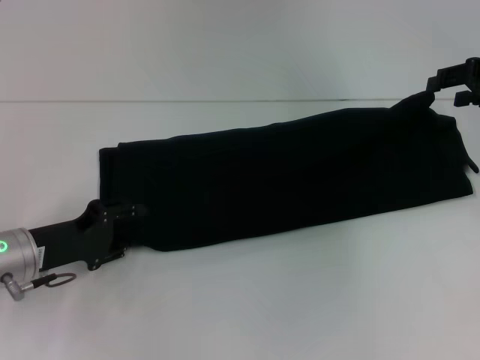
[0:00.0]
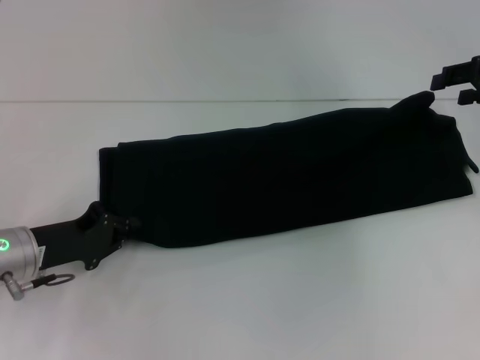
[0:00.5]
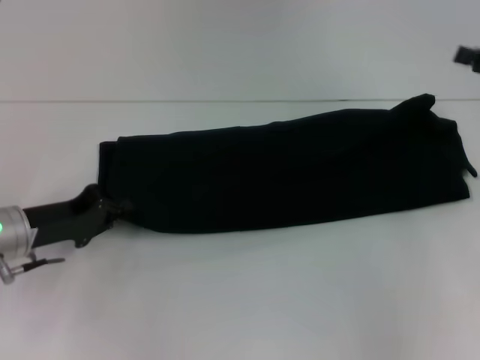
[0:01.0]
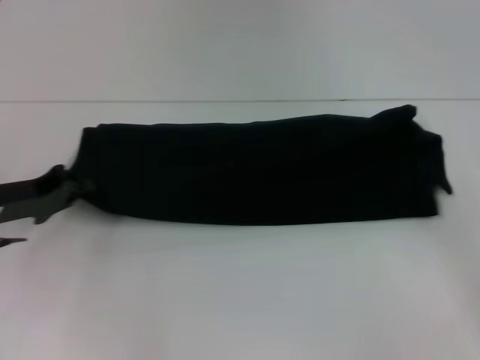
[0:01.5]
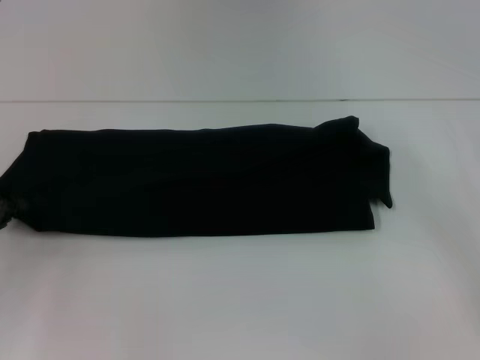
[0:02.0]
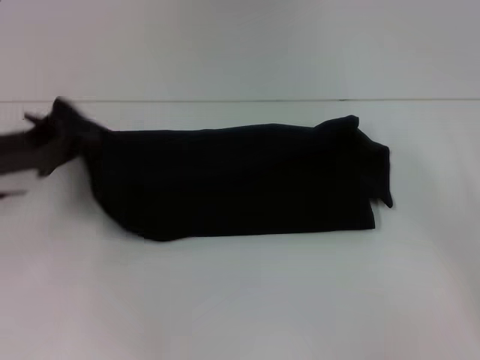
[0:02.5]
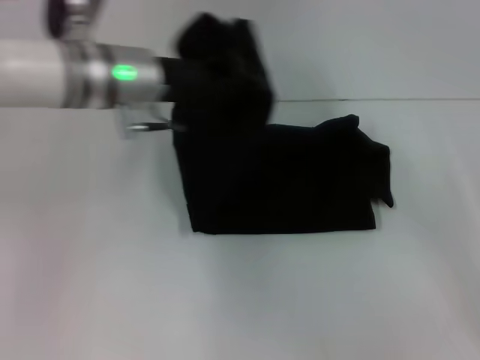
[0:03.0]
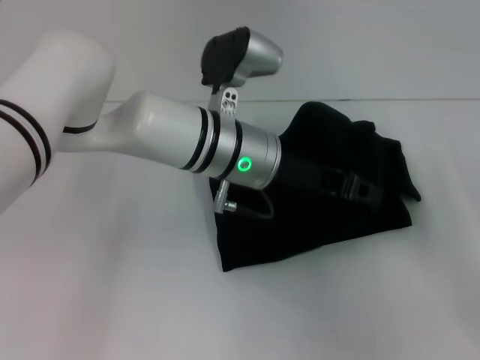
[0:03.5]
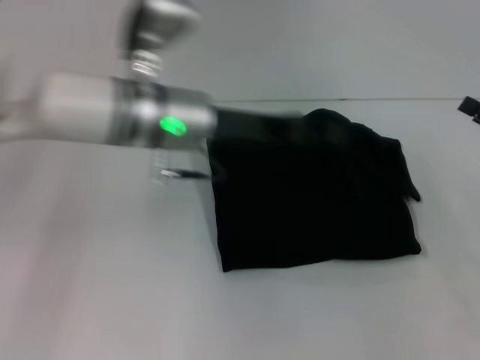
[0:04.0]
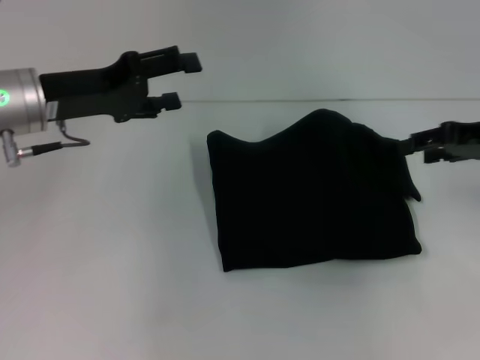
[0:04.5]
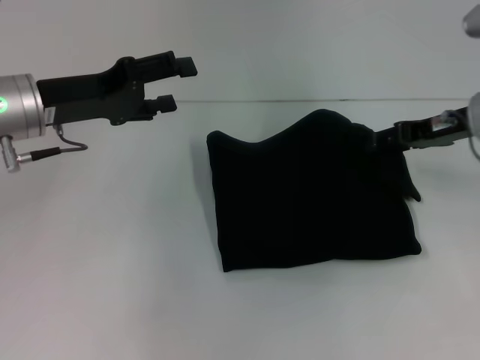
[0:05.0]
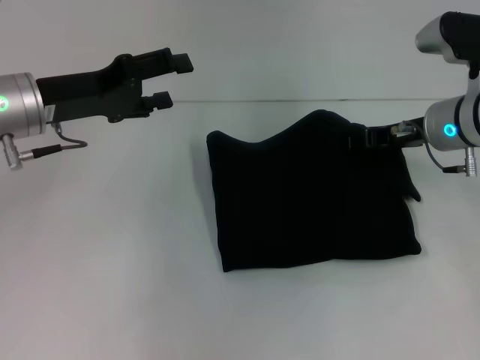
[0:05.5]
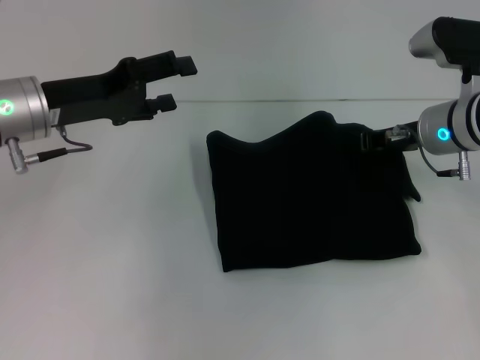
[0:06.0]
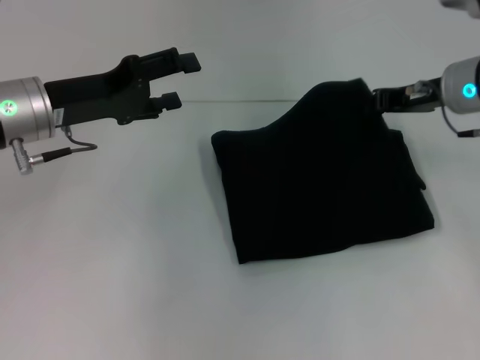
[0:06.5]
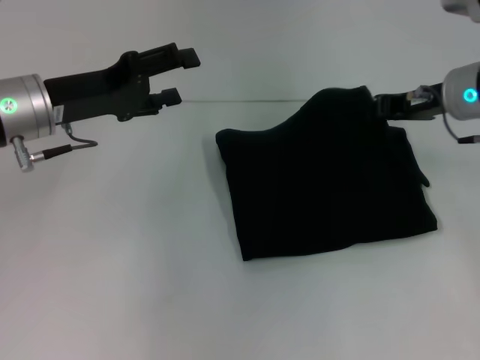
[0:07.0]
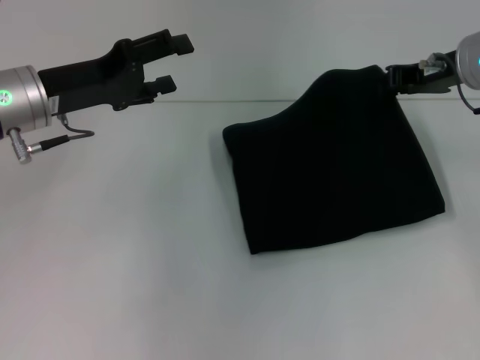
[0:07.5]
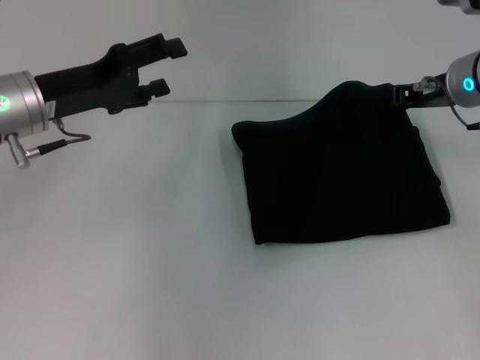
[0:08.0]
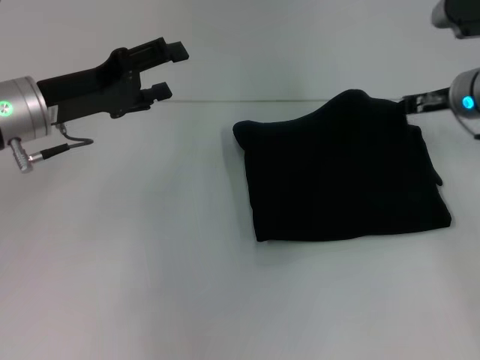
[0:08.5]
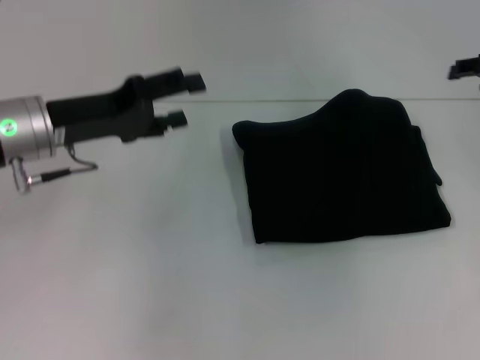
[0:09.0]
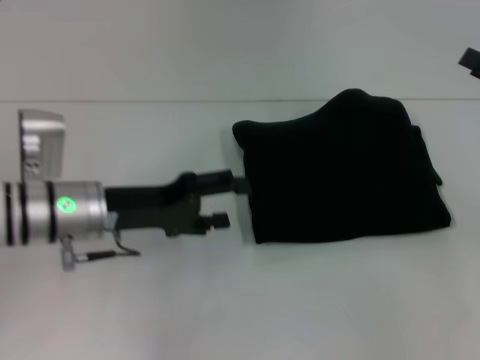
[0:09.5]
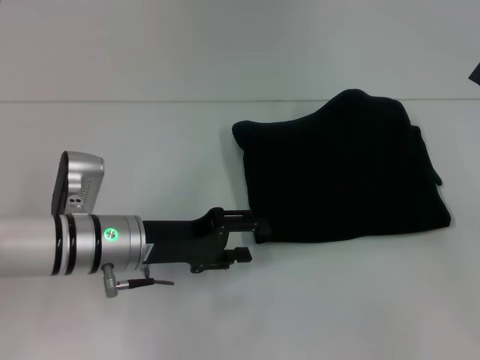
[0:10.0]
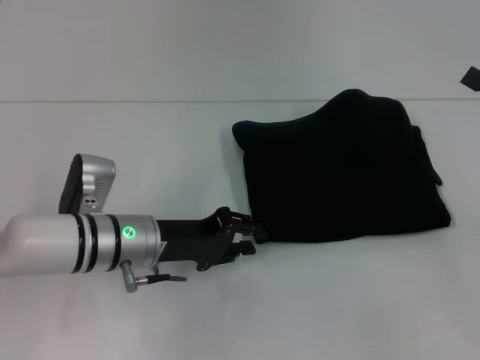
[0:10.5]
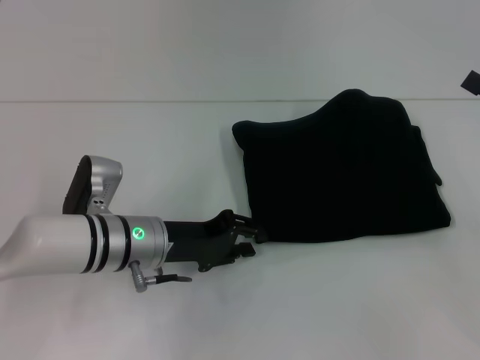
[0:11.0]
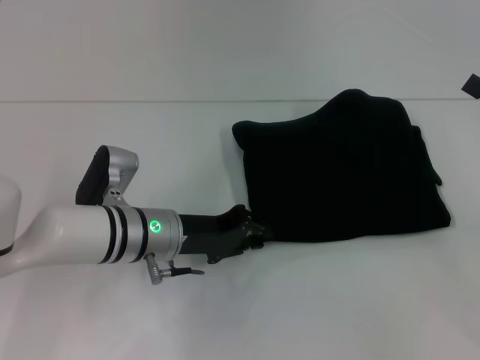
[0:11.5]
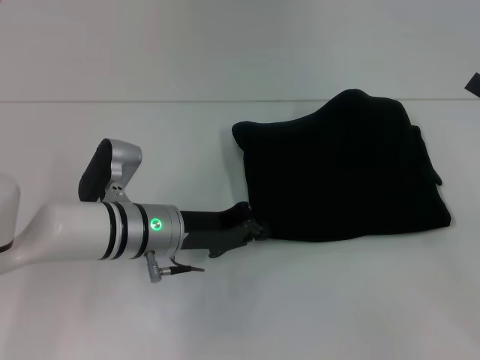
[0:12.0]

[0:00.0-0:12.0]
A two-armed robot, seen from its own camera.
Step, 0:00.0 to 0:03.5: Fold the clothes with your left hand.
0:00.0 to 0:02.0: The right gripper is displaced backward and downward by some 20 cm. Meanwhile the left gripper heads to the left, covering about 10 cm, and closes its fingers.
0:02.0 to 0:04.0: The right gripper changes place by some 5 cm. Meanwhile the left gripper goes some 25 cm to the right, and opens.
0:04.0 to 0:06.0: The right gripper moves to the left and forward, roughly 20 cm, and closes its fingers; the left gripper goes approximately 15 cm to the left, and opens up.
0:08.0 to 0:10.0: The right gripper travels backward and to the right by some 20 cm, and opens its fingers. Meanwhile the left gripper travels downward, to the right and backward by roughly 15 cm.
0:10.0 to 0:12.0: The left gripper closes up.

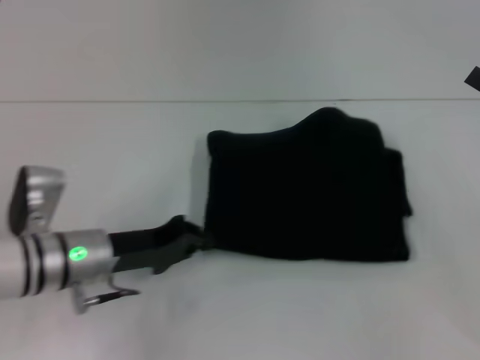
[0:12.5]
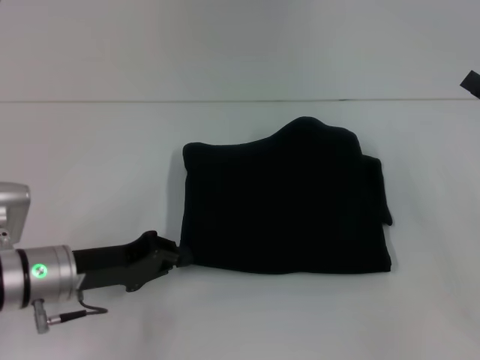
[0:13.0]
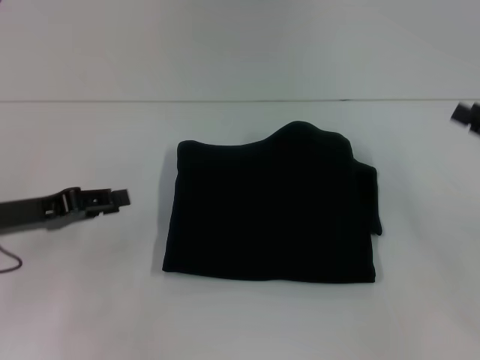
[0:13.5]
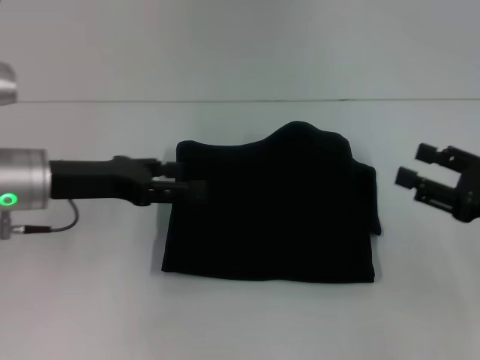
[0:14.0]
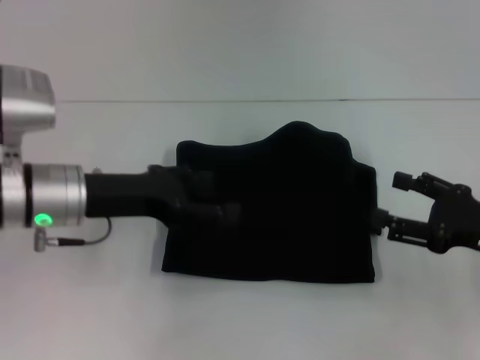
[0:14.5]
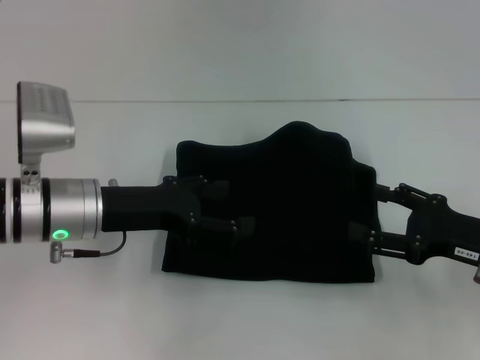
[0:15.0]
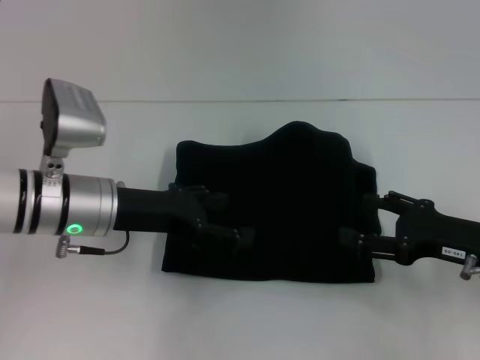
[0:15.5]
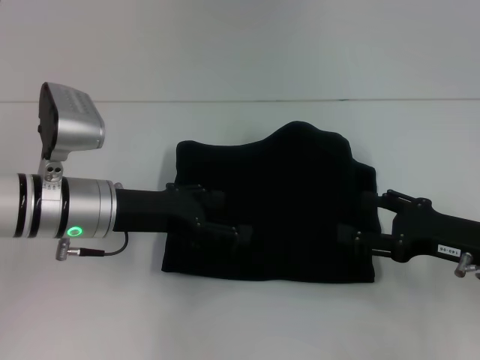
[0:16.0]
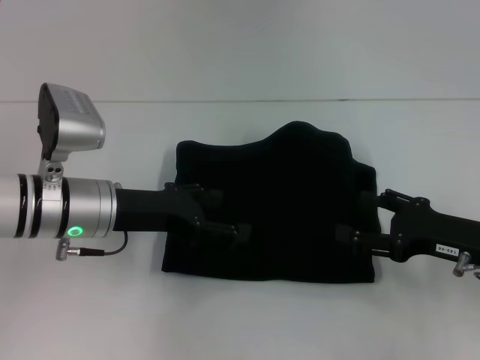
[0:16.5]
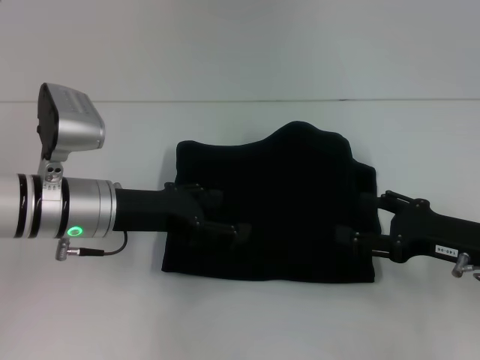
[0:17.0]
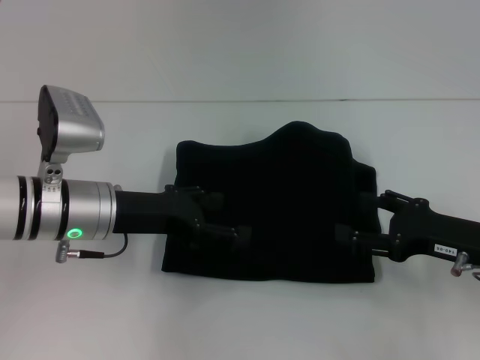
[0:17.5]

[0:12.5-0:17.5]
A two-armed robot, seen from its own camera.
0:12.5 to 0:15.0: The left gripper heads upward, covering about 5 cm, goes to the left and returns, roughly 10 cm each way, and opens. Meanwhile the right gripper travels to the left and downward by about 10 cm.
0:15.0 to 0:17.5: The grippers move only a little.
